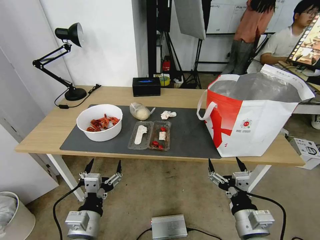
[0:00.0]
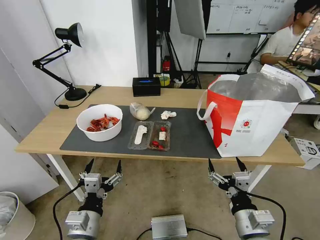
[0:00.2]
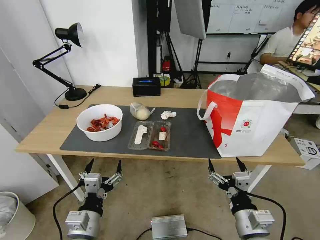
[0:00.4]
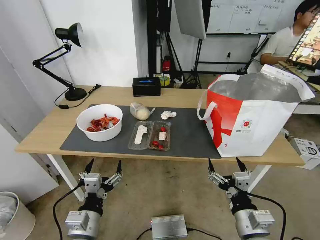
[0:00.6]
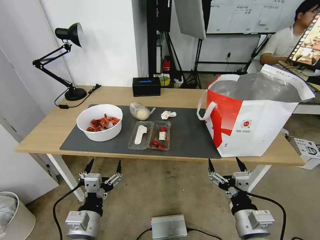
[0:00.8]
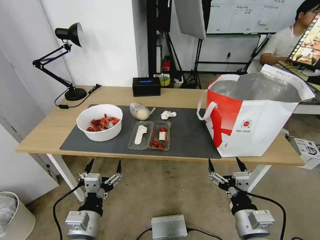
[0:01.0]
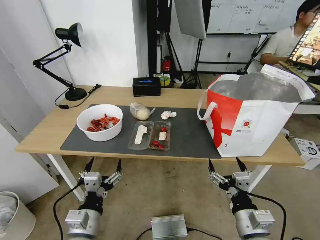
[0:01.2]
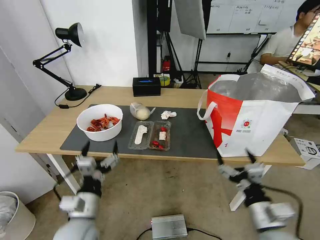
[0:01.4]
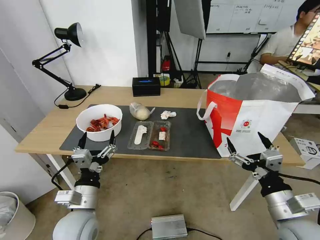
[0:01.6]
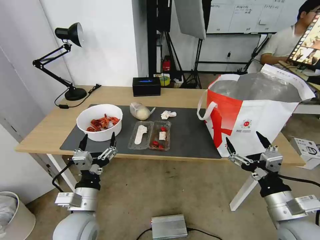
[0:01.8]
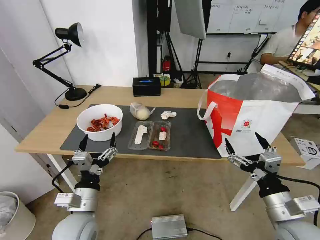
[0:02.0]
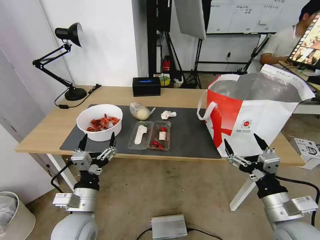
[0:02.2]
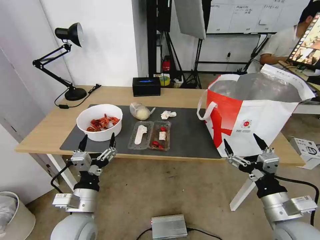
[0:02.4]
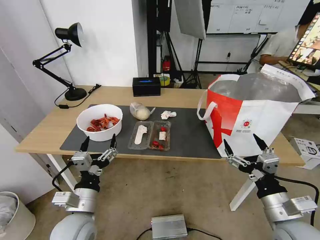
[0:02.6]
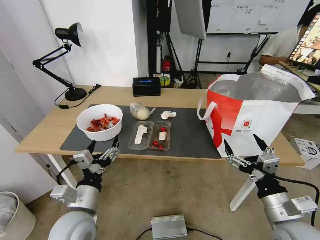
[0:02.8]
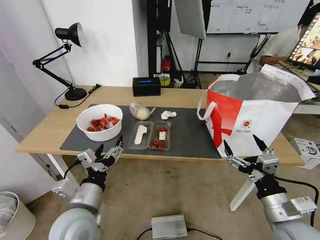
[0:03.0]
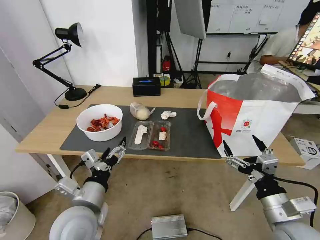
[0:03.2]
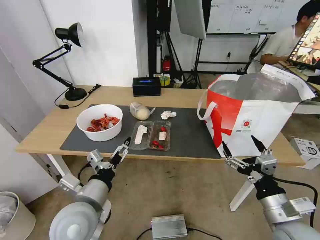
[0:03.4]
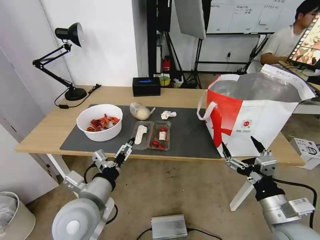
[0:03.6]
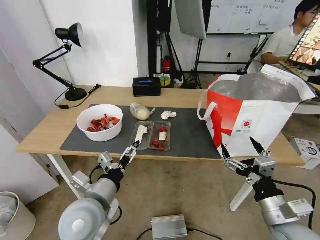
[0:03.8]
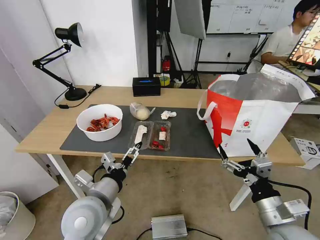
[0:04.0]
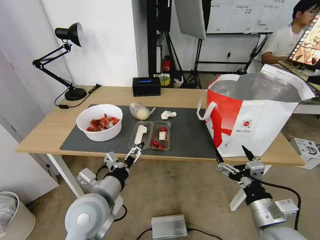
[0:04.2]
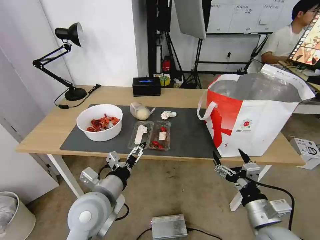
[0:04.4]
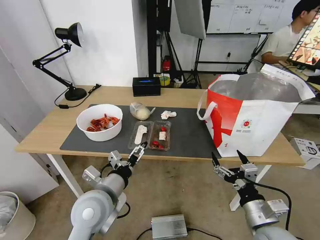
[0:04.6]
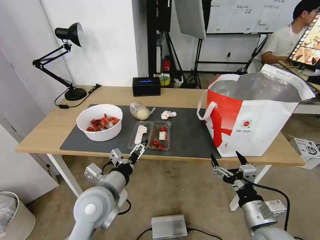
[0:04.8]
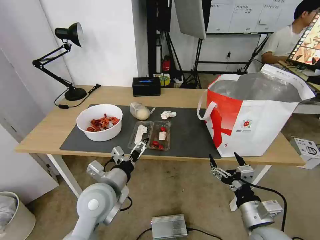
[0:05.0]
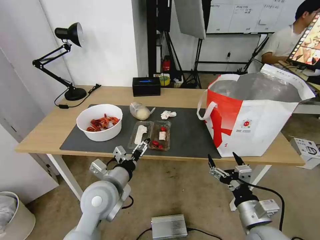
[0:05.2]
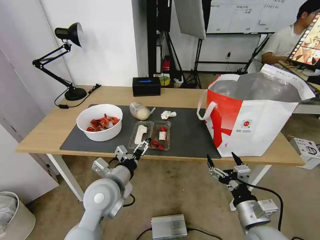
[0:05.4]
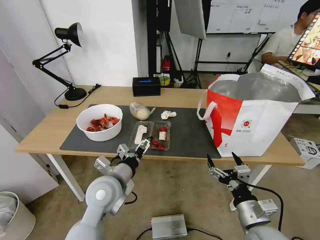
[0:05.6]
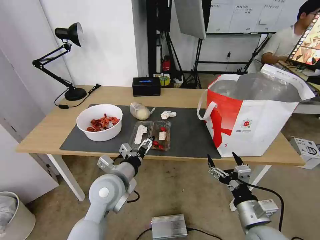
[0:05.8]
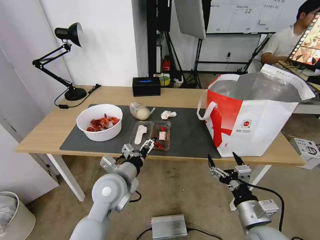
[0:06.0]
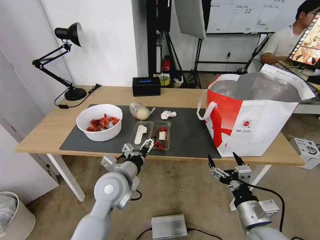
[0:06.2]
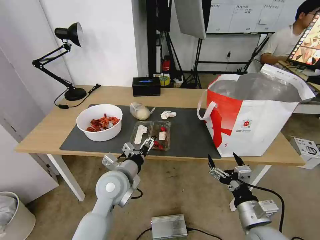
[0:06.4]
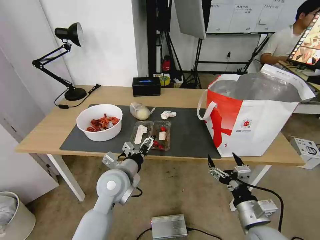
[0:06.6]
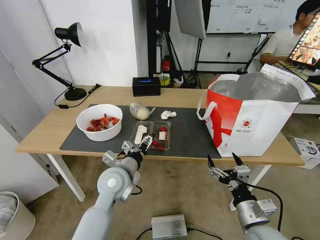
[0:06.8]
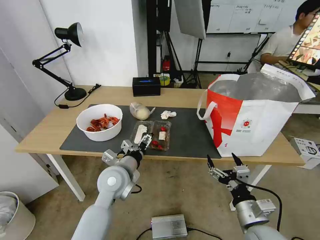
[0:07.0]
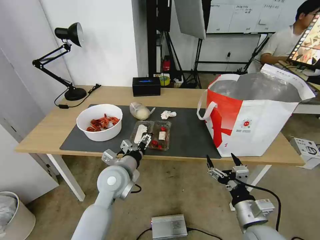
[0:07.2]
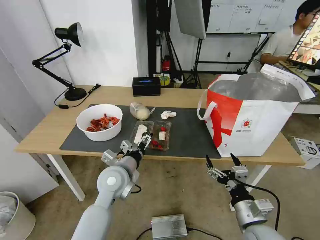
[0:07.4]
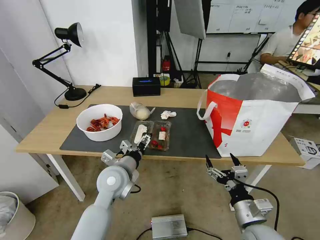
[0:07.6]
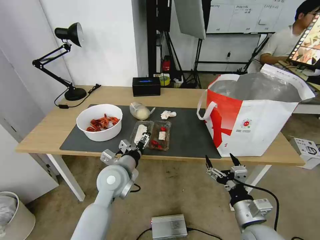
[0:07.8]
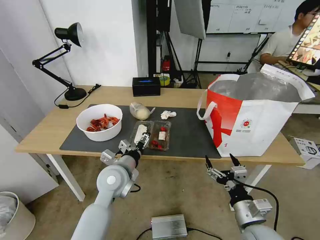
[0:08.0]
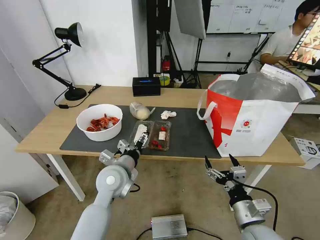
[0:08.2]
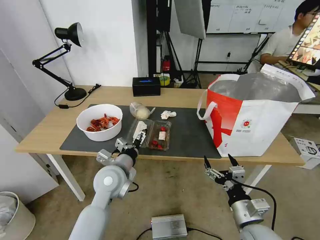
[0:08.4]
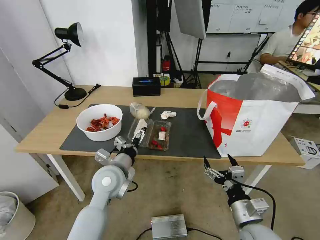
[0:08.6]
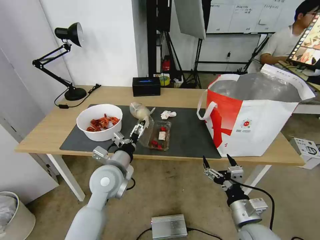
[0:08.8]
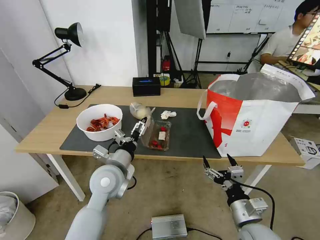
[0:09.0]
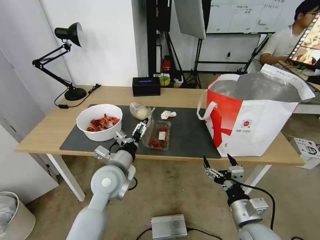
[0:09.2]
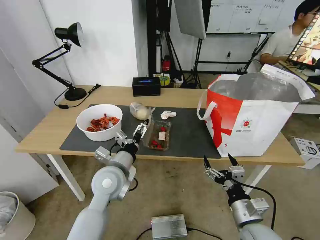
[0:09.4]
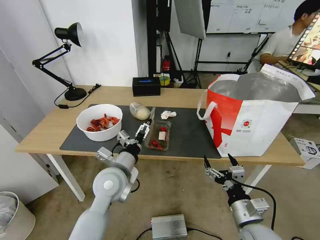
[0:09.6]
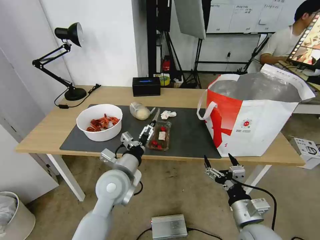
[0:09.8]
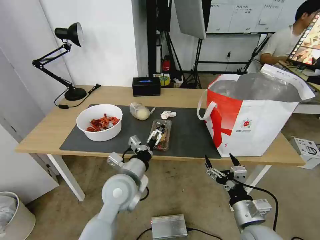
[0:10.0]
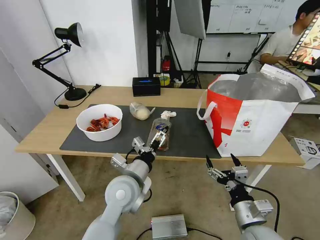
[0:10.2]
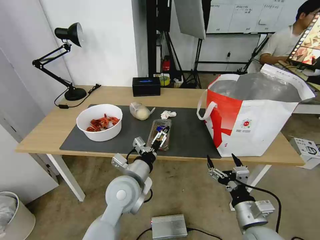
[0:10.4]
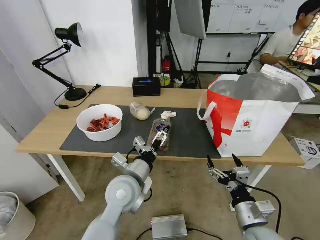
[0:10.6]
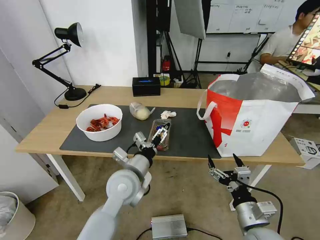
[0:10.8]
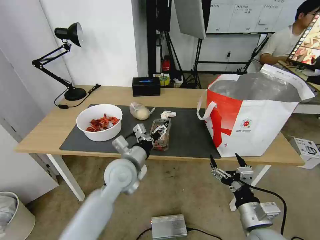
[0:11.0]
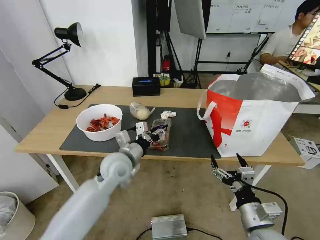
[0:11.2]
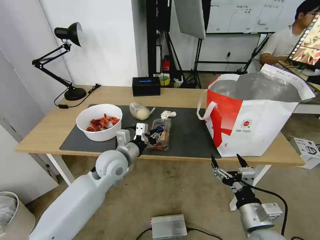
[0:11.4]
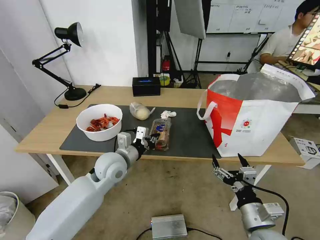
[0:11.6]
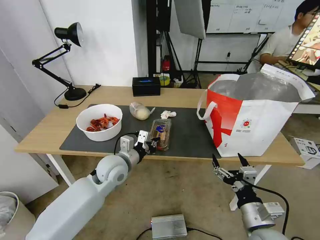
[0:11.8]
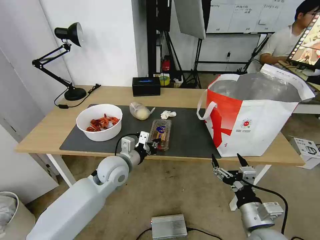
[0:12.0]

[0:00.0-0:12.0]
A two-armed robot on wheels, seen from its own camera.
Task of the whole recording: Pick up the trash from the table and place it into the takeout bag.
0:03.0 to 0:04.4: The left gripper moves approximately 5 cm.
0:04.4 to 0:06.0: The left gripper is displaced forward by roughly 5 cm.
0:06.0 to 0:09.0: The grippers move only a little.
0:09.0 to 0:10.4: The left gripper shifts by about 5 cm.
0:10.4 to 0:12.0: The left gripper heads forward, covering roughly 10 cm, and closes.

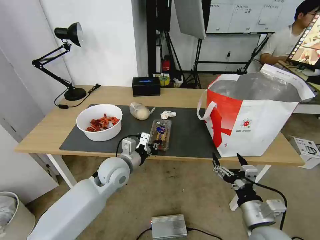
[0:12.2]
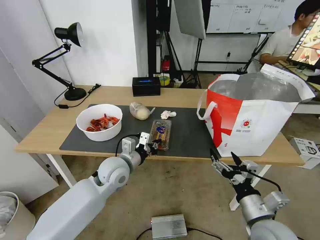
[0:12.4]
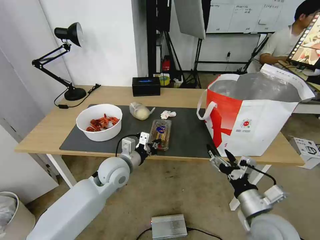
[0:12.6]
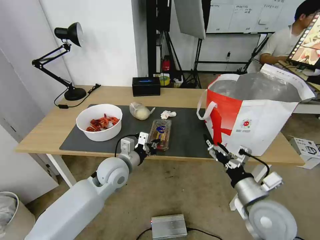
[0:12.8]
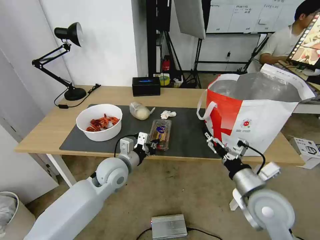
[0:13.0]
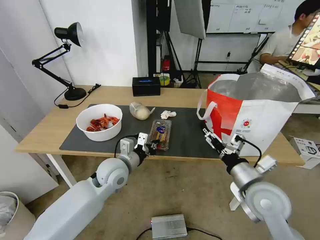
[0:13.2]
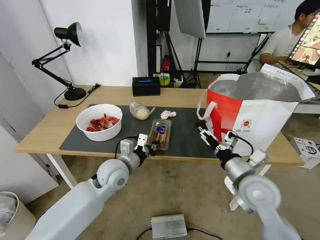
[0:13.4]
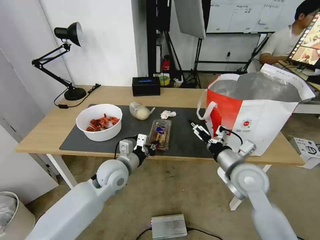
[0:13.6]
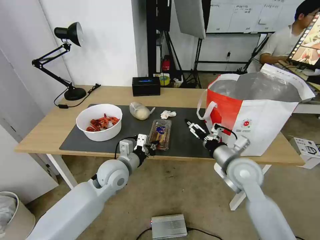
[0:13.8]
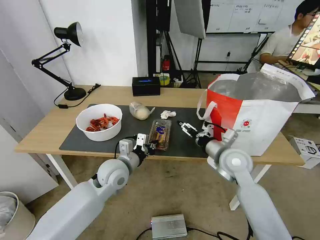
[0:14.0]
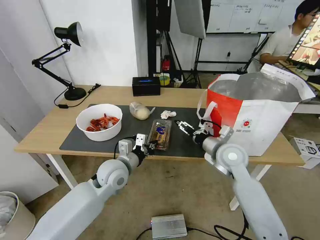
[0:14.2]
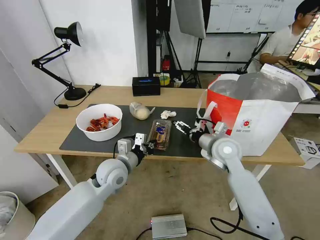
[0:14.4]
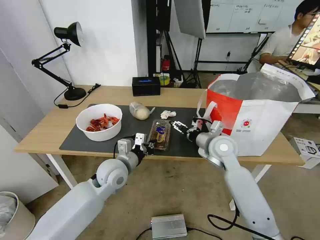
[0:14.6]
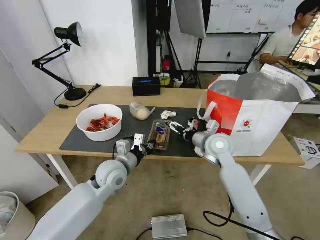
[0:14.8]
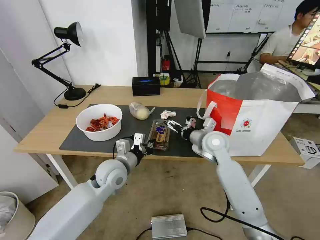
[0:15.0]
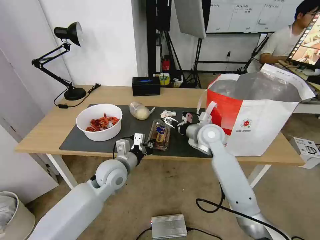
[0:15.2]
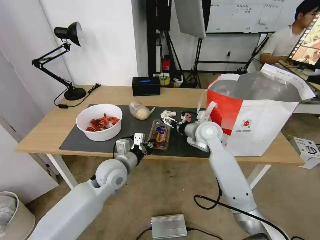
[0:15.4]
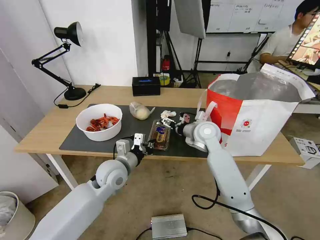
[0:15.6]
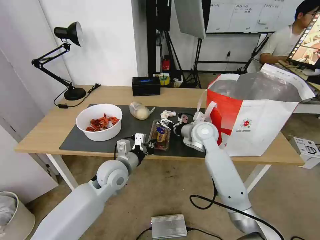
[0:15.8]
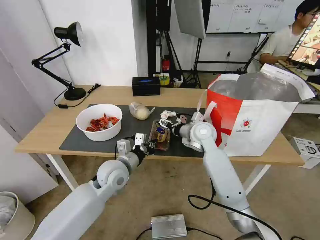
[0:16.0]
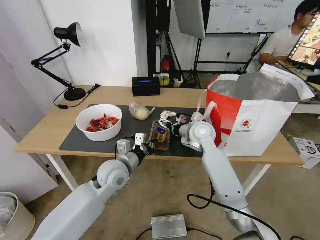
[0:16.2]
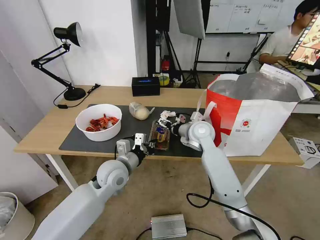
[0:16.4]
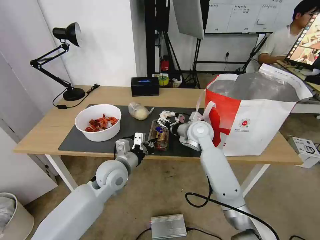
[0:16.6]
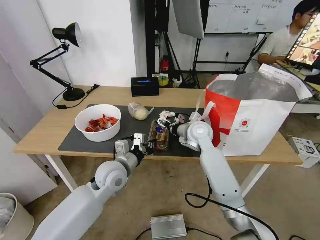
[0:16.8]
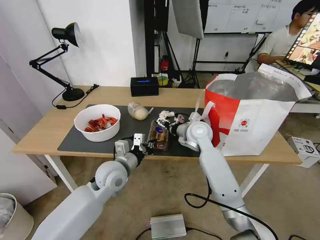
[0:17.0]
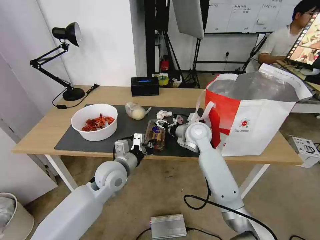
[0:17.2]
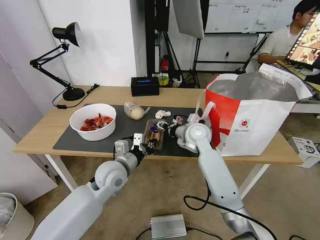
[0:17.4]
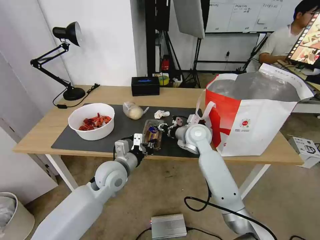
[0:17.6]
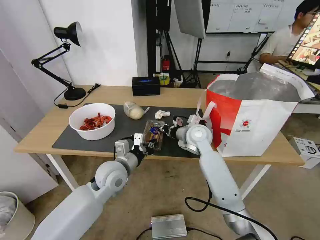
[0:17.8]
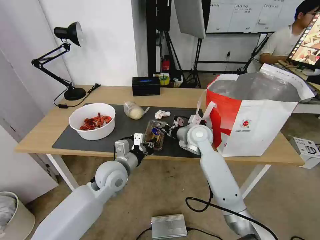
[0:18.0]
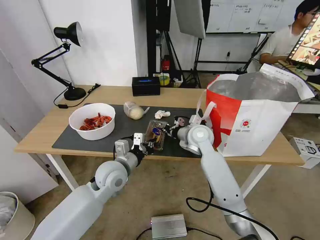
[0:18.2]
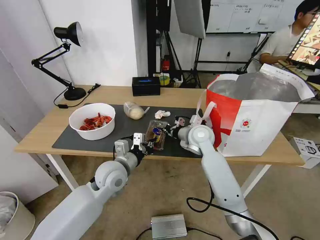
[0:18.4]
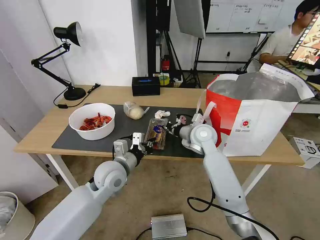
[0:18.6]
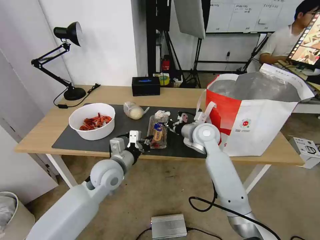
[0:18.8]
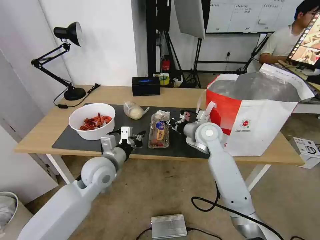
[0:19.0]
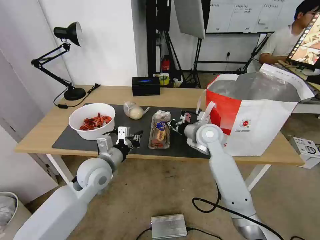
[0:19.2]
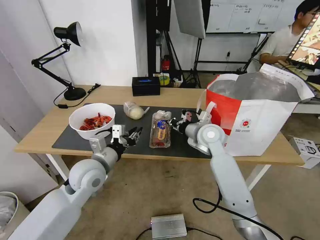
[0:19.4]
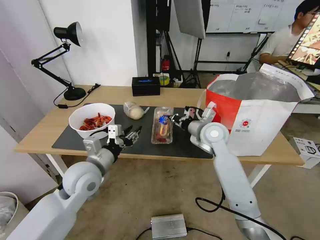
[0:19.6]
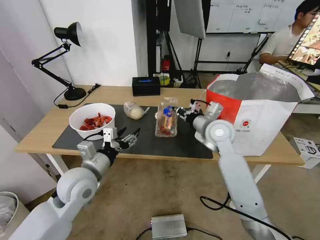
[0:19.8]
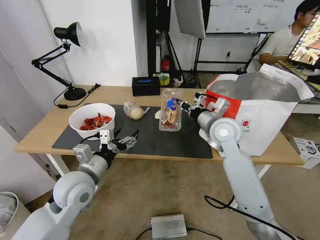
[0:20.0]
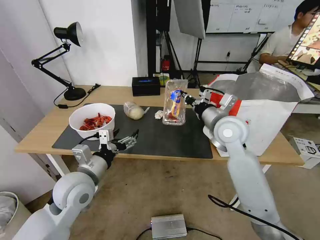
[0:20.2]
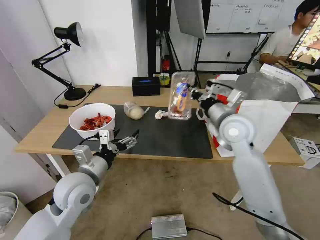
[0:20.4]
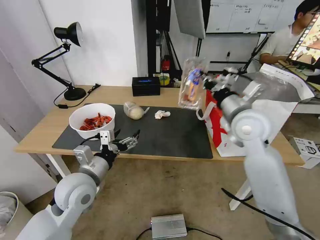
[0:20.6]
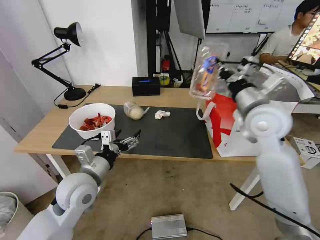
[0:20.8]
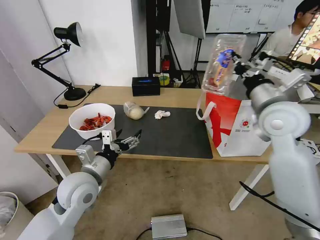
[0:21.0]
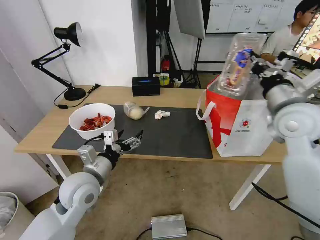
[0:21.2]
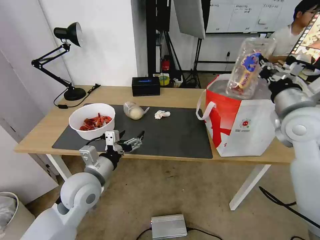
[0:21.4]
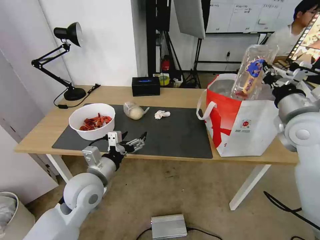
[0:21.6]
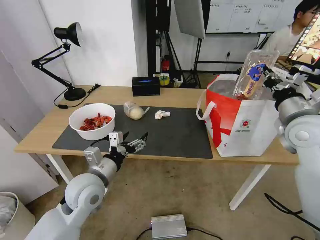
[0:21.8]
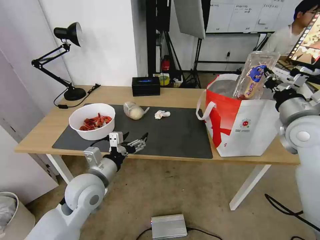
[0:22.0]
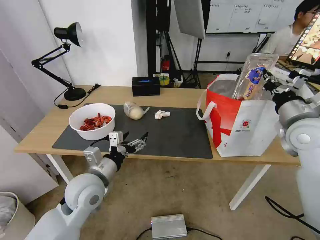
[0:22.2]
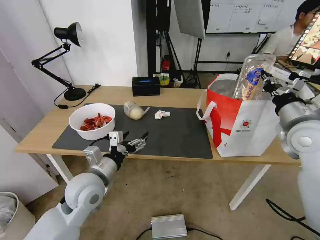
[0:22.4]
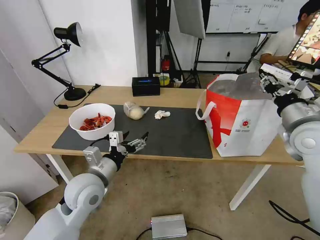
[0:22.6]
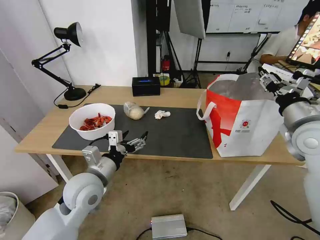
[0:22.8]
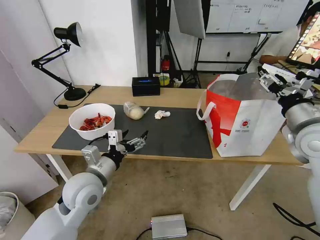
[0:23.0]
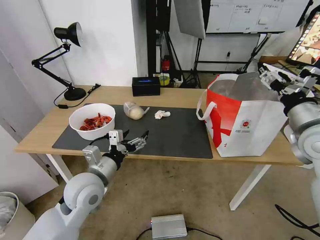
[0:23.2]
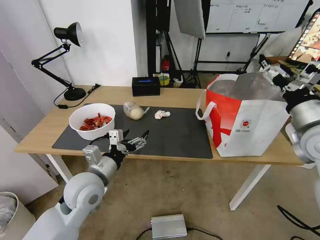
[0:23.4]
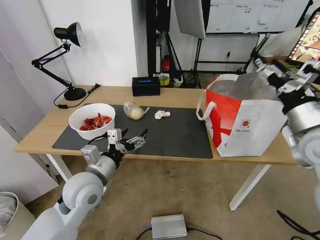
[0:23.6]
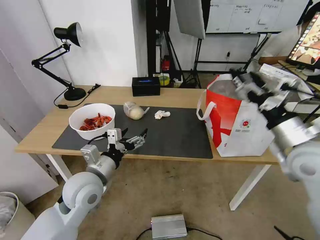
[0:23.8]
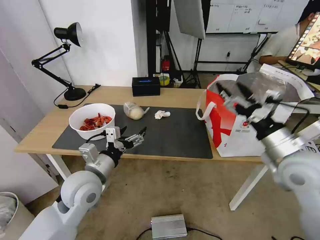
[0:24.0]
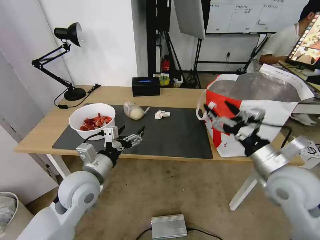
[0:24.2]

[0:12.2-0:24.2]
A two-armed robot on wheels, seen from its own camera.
Task of the whole recording: Pick up the trash from the table and place it into the takeout bag.
0:12.2 to 0:13.8: The right gripper shifts some 15 cm forward.
0:13.8 to 0:15.2: The right gripper heads forward and to the left, covering about 15 cm.
0:15.2 to 0:16.6: The grippers stay close to where they were, moving slightly.
0:16.6 to 0:18.2: The right gripper closes.
0:18.2 to 0:19.8: The right gripper shifts about 5 cm upward, while the left gripper heads to the left and backward, covering some 10 cm, and opens up.
0:19.8 to 0:21.2: The right gripper goes some 20 cm to the right, upward and backward.
0:21.2 to 0:22.6: The right gripper shifts by about 5 cm.
0:22.6 to 0:24.2: The right gripper travels backward, downward and to the left by some 10 cm, and opens.
